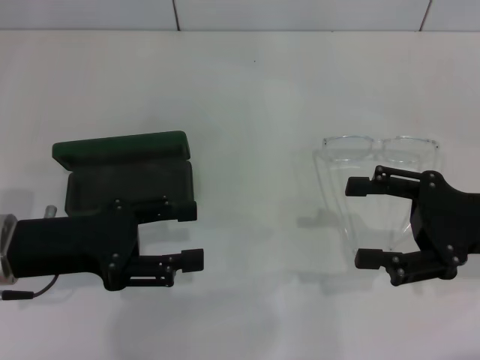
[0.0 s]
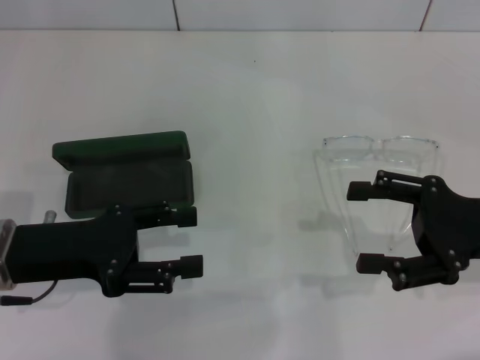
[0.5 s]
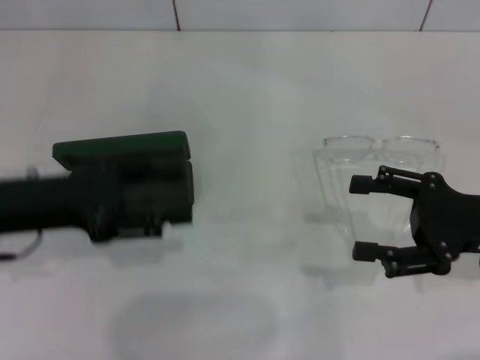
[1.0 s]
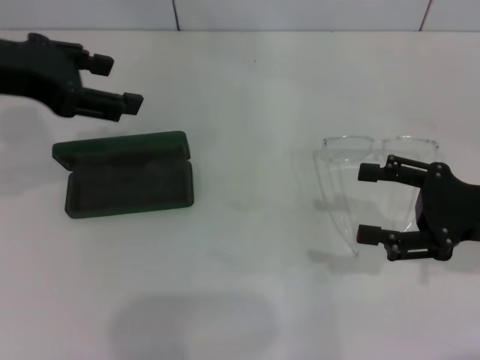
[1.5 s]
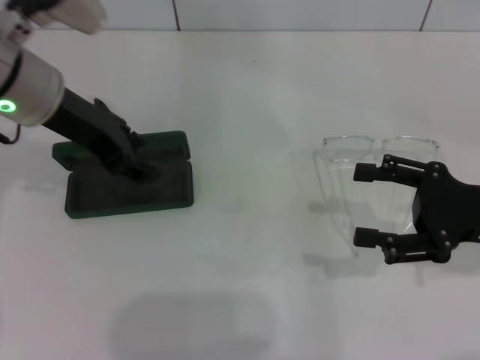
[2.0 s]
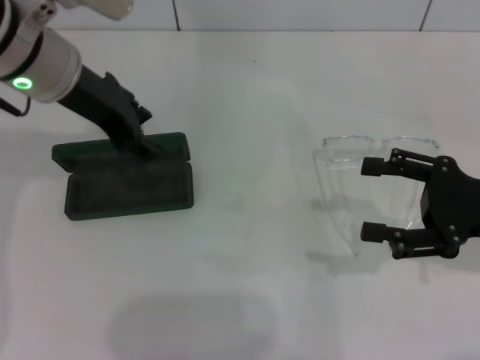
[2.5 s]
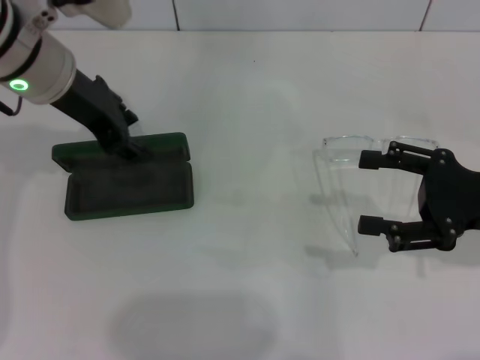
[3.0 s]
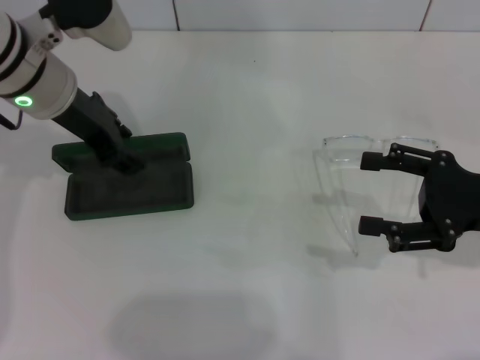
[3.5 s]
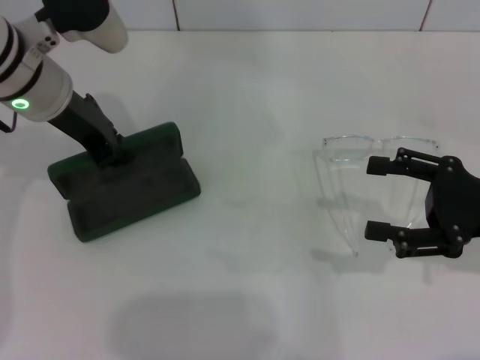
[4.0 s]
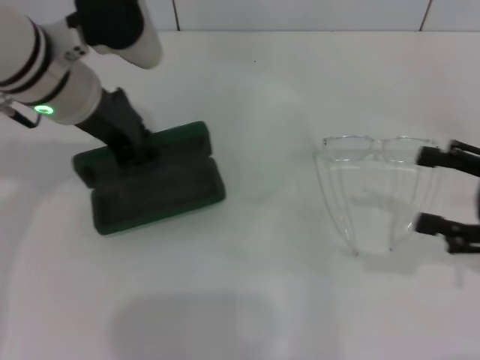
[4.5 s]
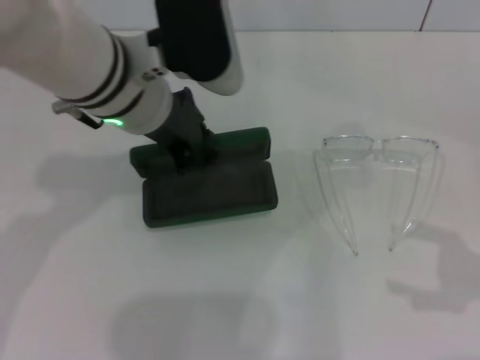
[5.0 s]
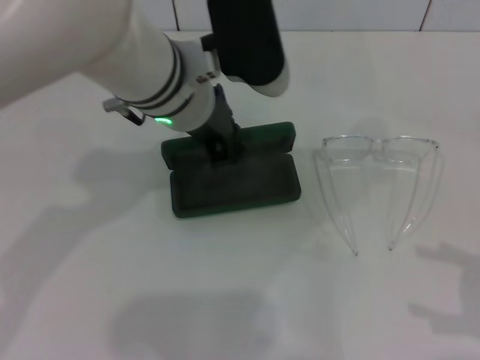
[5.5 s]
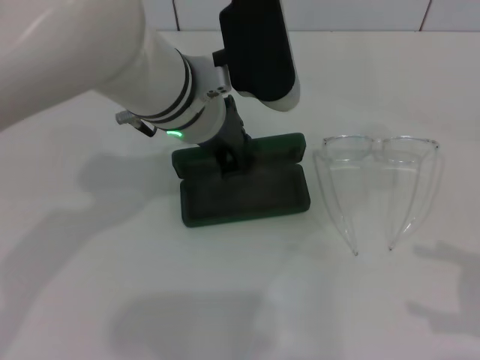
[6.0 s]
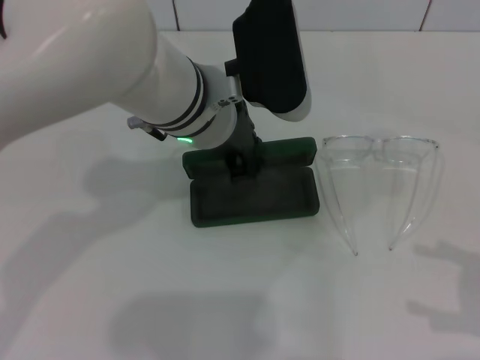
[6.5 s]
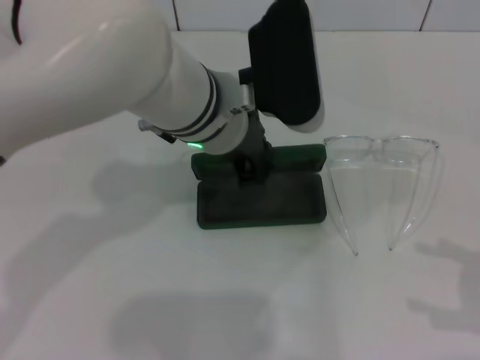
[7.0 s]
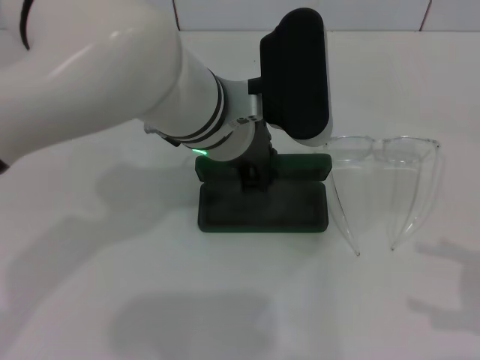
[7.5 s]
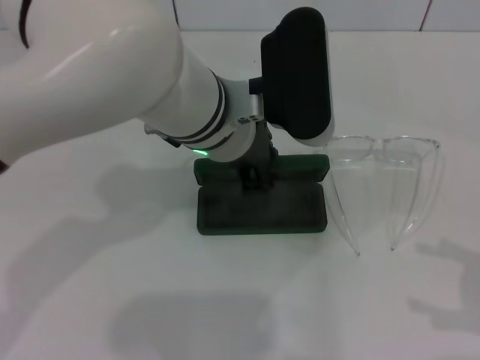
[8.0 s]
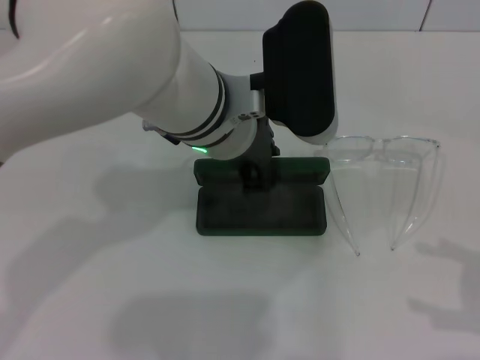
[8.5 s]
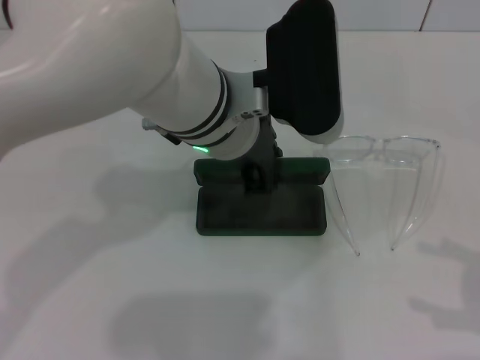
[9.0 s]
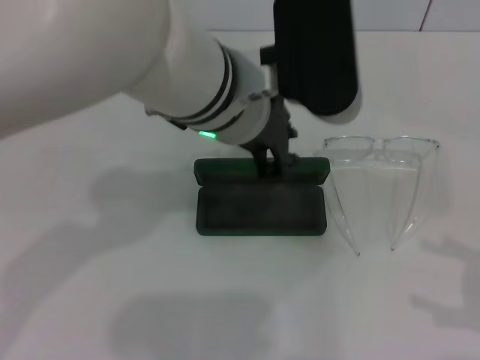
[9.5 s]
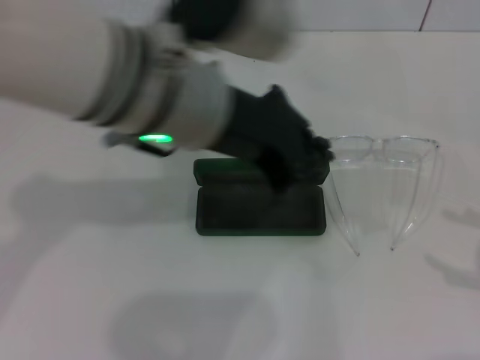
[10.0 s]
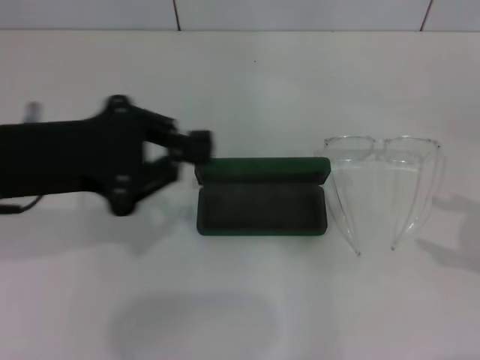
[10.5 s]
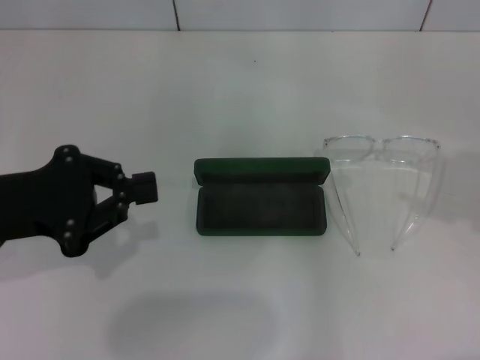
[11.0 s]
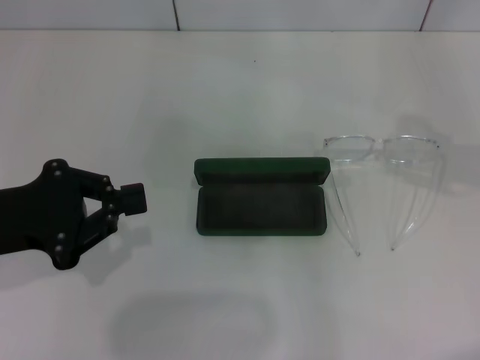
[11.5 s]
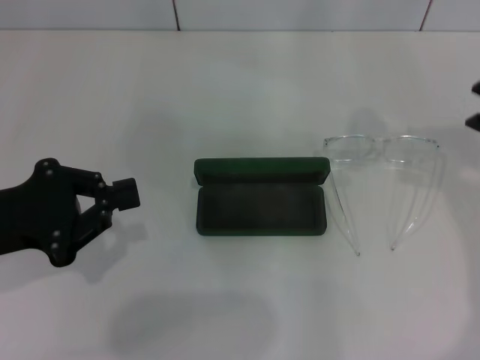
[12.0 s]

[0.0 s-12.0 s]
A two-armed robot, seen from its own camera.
Step, 0.0 to 4.0 s: Grab the glasses case with your left hand.
Step, 4.5 to 9.0 s: Place the glasses case in the center of the table with your left hand.
0.0 to 2.0 s: The left gripper is displaced forward, upward and to the right by roughly 15 cm.
2.0 to 4.0 s: The left gripper closes up.
4.0 to 6.0 s: The right gripper travels to the right and backward by roughly 15 cm. The left gripper is displaced to the right by about 15 cm.
8.0 to 10.0 s: The left gripper is displaced upward by roughly 5 cm.
10.0 to 12.0 s: The right gripper shifts some 25 cm to the left, forward and upward, and closes up; the left gripper travels to the left and downward by about 25 cm.

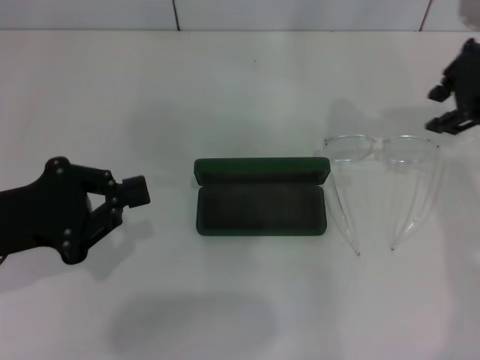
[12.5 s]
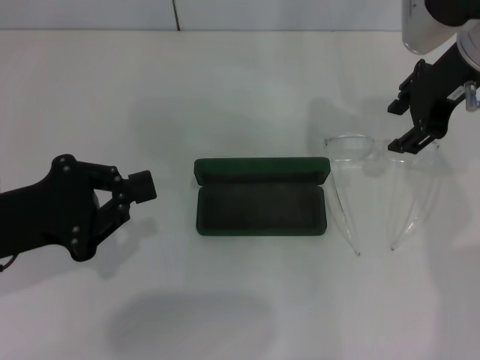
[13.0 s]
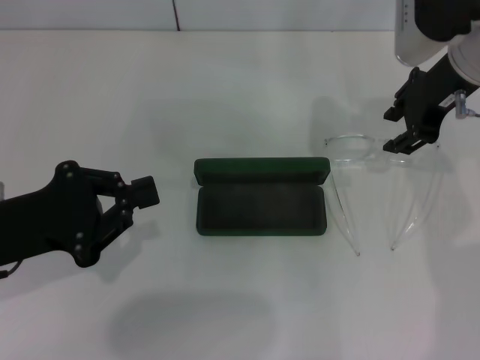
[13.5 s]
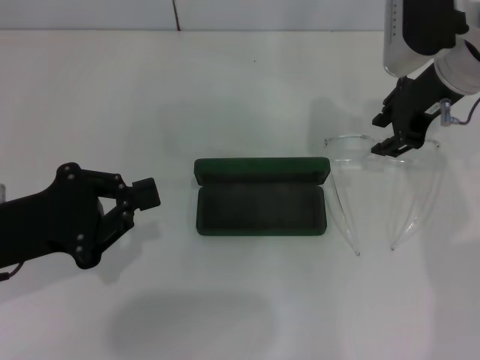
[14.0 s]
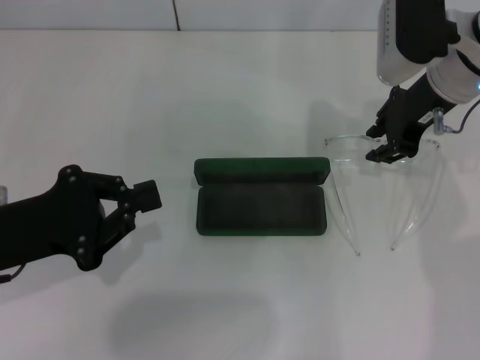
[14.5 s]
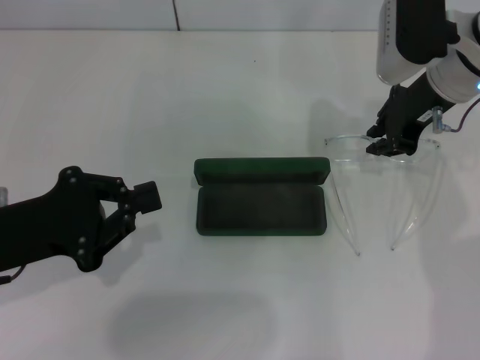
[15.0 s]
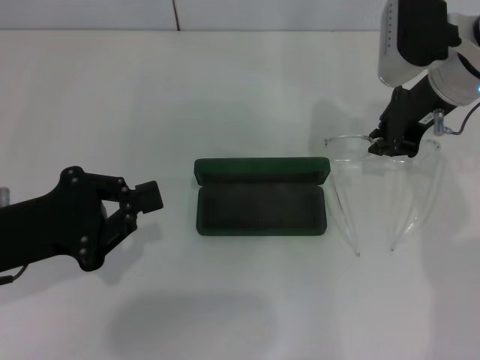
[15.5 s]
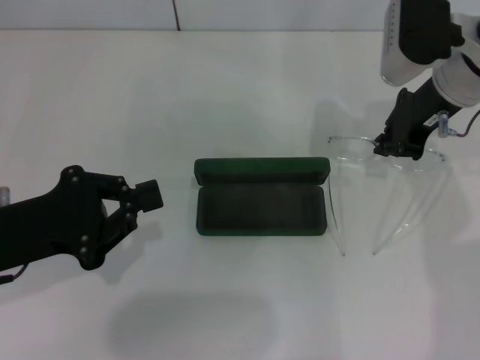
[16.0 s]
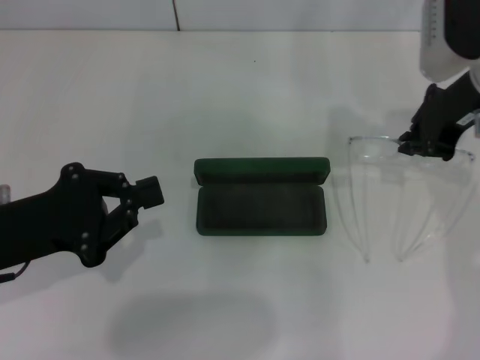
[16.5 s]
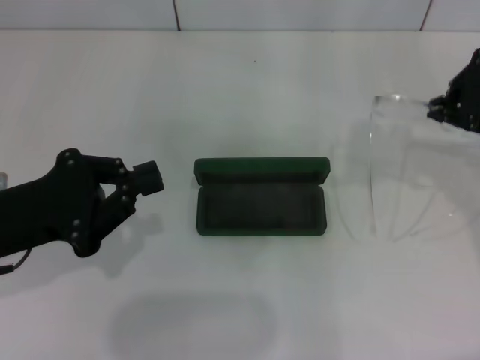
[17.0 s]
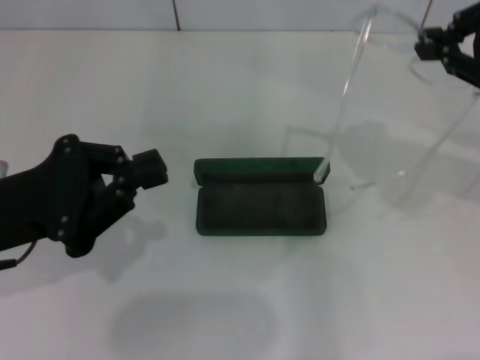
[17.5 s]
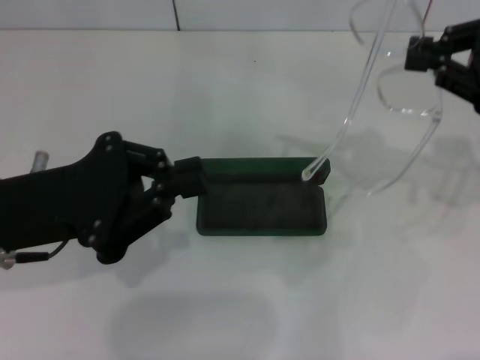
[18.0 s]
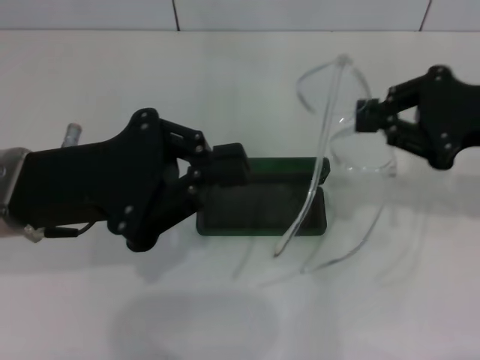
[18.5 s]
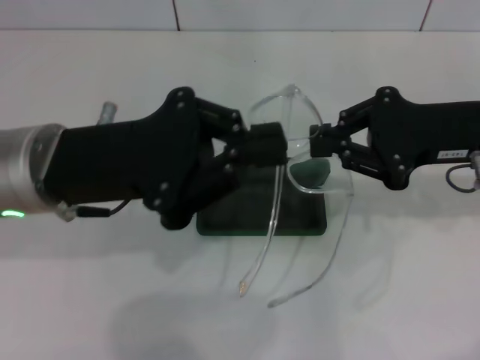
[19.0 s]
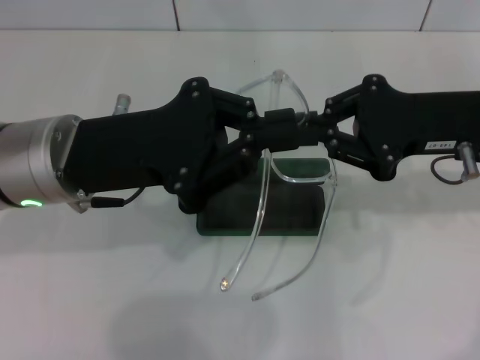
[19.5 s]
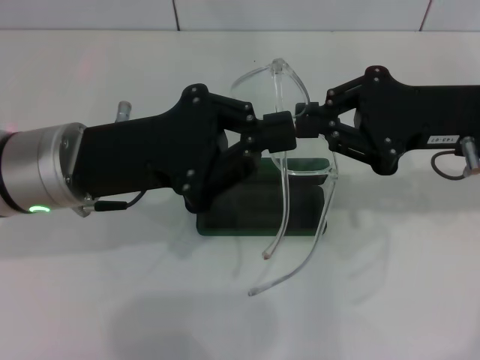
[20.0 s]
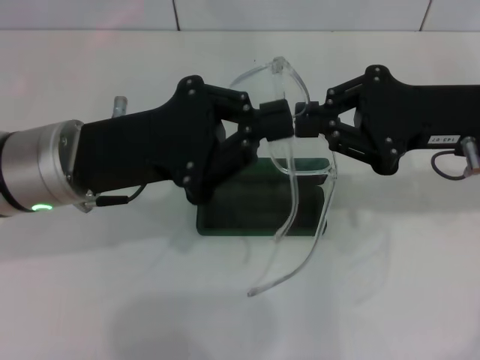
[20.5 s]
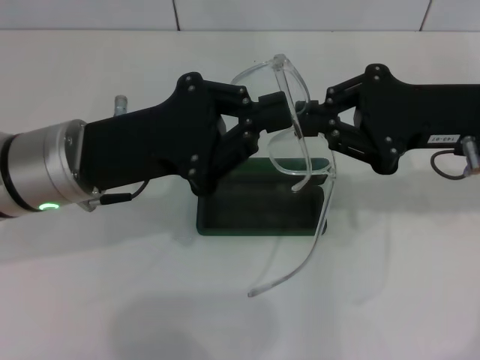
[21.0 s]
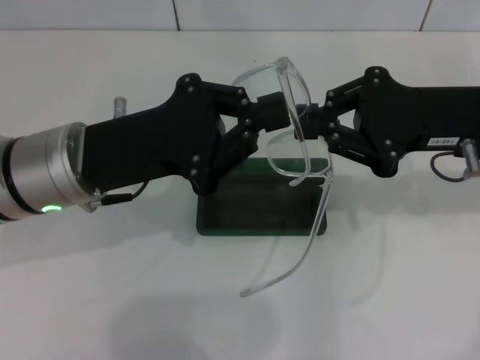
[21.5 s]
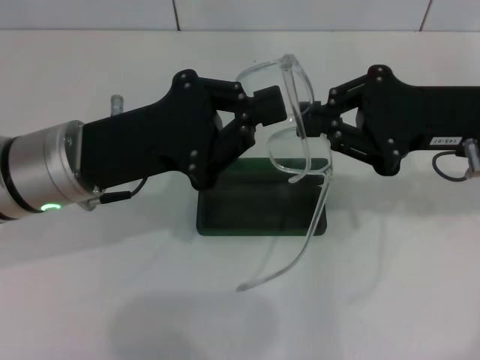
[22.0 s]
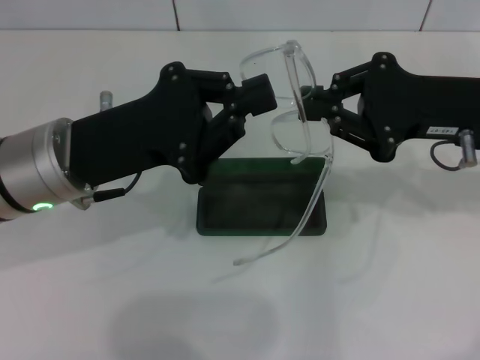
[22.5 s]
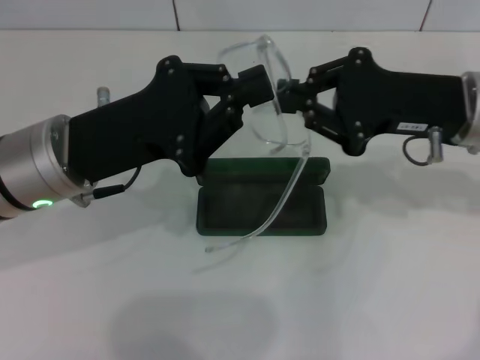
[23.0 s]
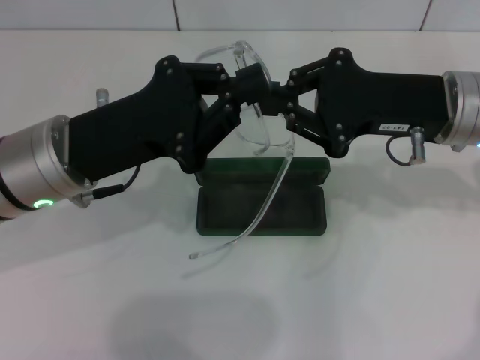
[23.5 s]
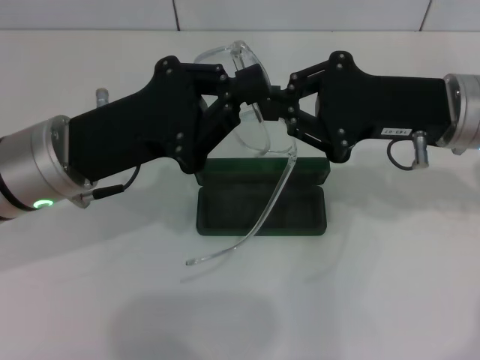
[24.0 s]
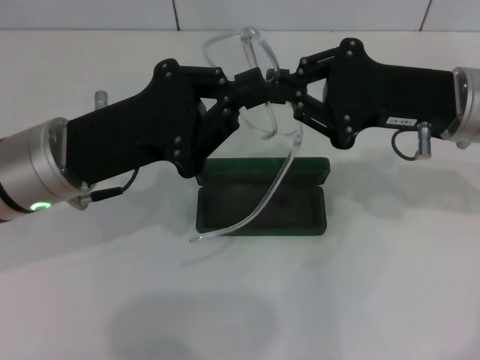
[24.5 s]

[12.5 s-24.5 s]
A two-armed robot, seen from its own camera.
Step, 12.5 to 15.5 s: Grab the eyeglass frame with your right hand.
12.5 to 14.5 s: The right gripper shifts roughly 10 cm downward.
14.5 to 16.5 s: The right gripper closes its fingers.
16.5 to 18.5 s: The left gripper is displaced to the right and upward by about 10 cm; the right gripper is displaced backward and to the right by approximately 10 cm, and reaches about 5 cm upward, then returns.
20.5 to 24.5 s: The grippers move only a little.

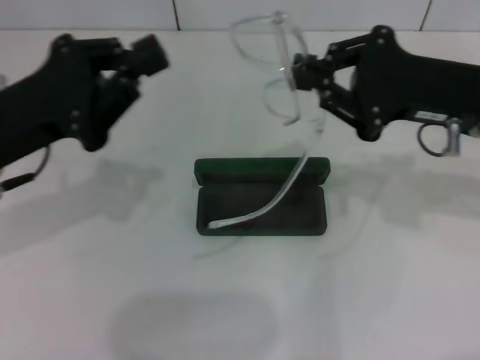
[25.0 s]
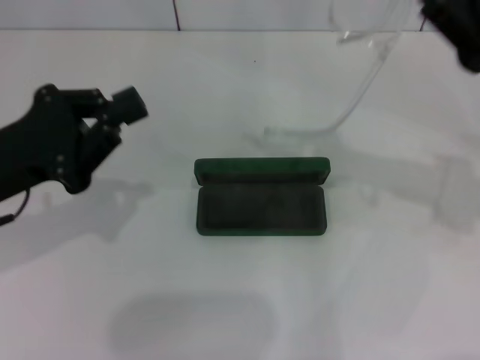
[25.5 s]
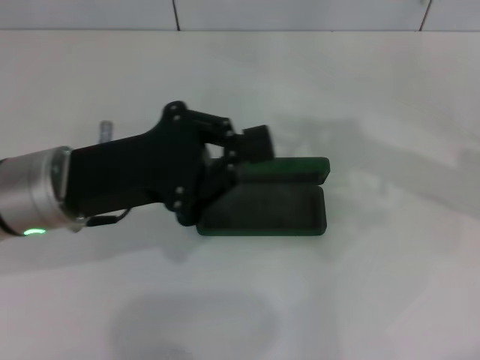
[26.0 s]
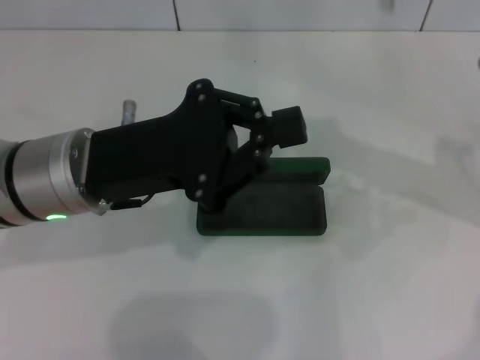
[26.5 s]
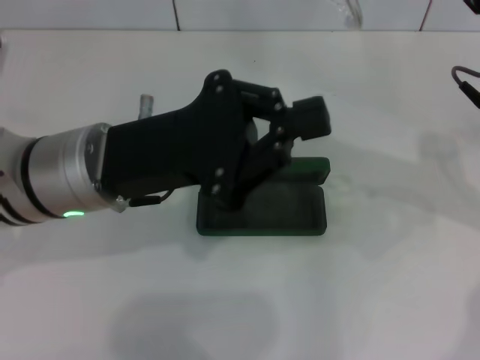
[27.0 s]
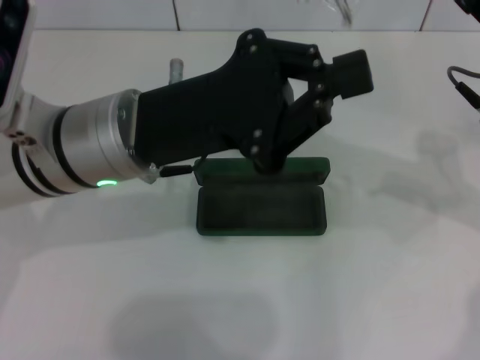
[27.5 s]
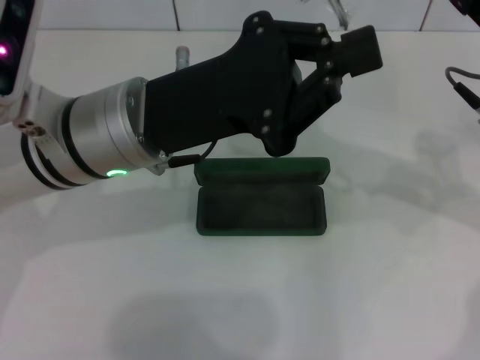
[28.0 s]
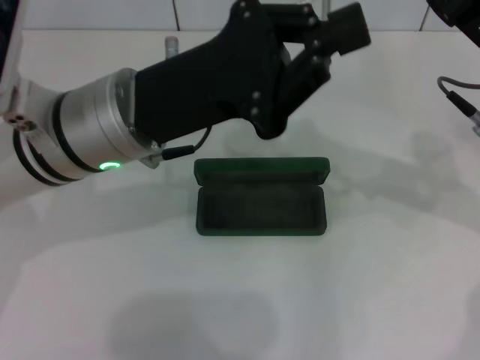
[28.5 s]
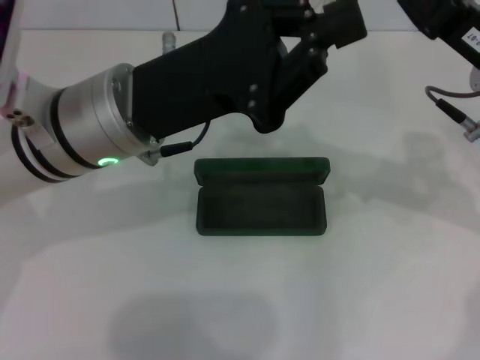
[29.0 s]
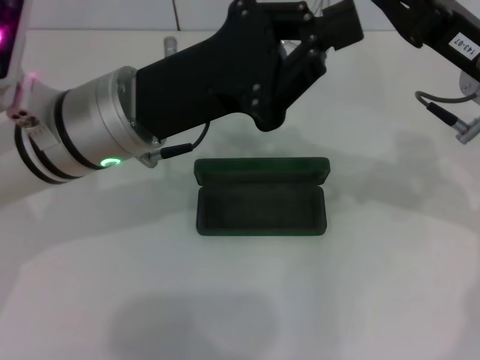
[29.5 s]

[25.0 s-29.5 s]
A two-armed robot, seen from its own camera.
25.0 to 27.0 s: The left gripper moves to the right, about 10 cm.
